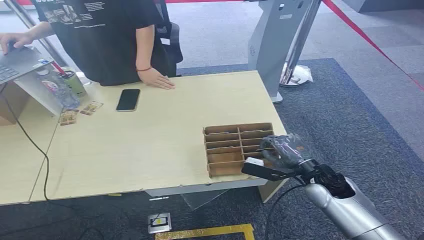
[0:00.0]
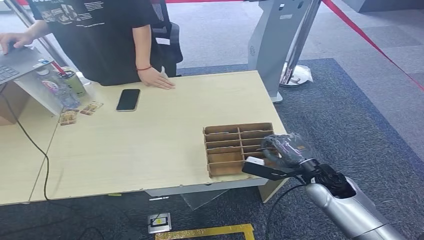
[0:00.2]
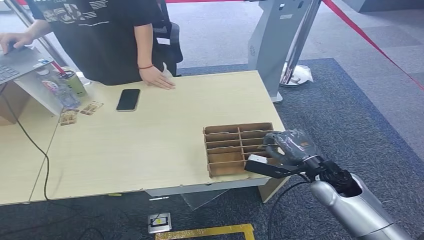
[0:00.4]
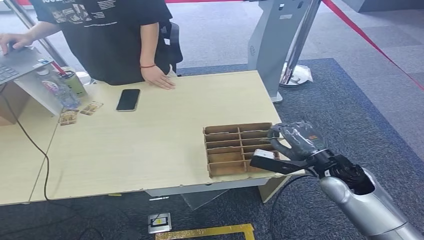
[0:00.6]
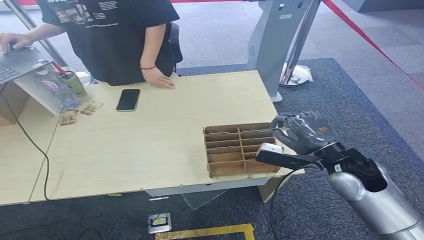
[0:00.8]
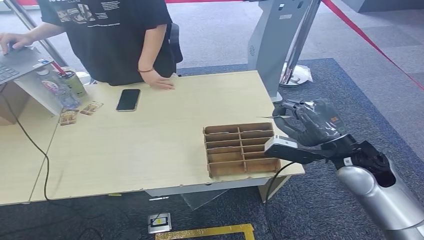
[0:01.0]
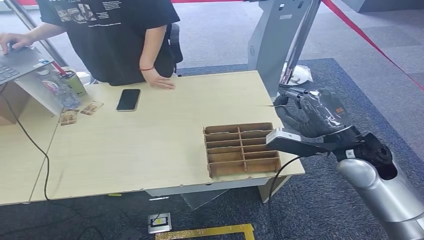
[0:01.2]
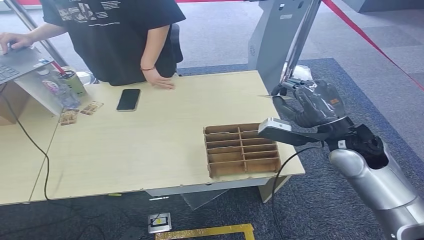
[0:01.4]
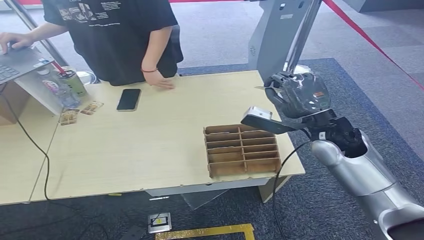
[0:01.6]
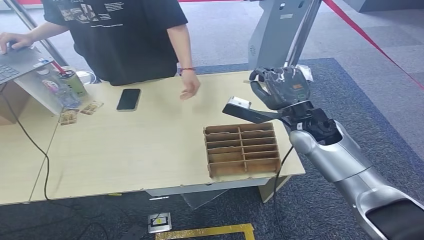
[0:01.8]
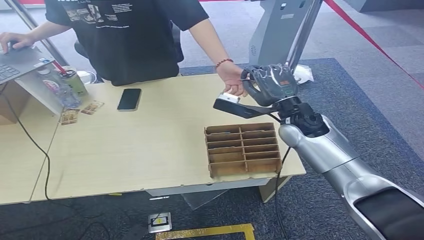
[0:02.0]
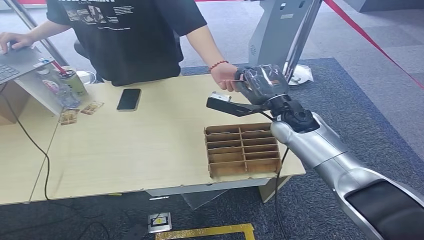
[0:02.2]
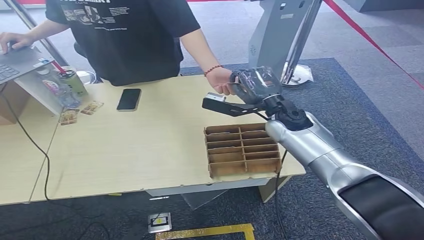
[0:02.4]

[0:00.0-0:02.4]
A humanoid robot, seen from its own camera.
Step, 0:00.0 to 0:00.6: Pick up the key card from the card box.
Step, 0:00.8 to 0:02.4: Hand the key card to the target.
0:01.2 to 0:02.4: The right hand is displaced forward and to the left by some 15 cm.
